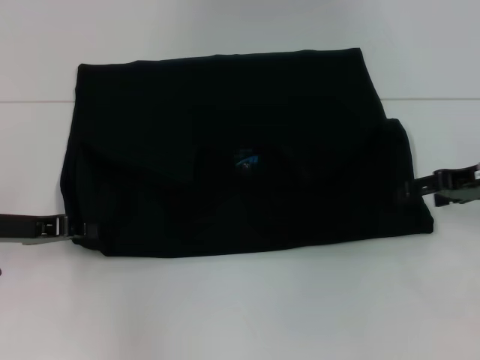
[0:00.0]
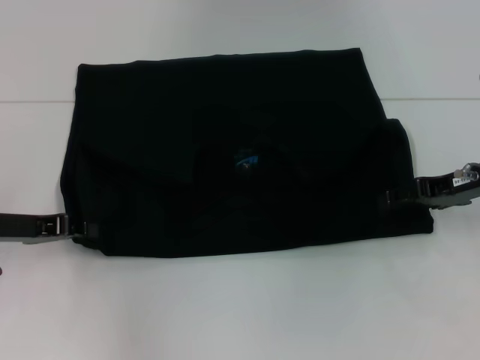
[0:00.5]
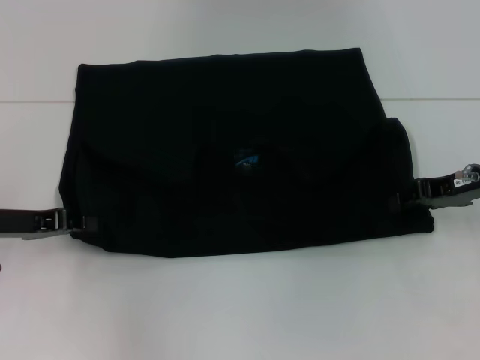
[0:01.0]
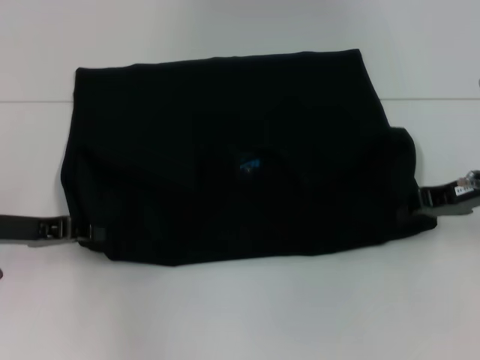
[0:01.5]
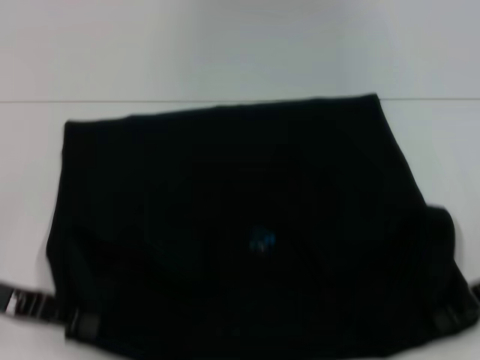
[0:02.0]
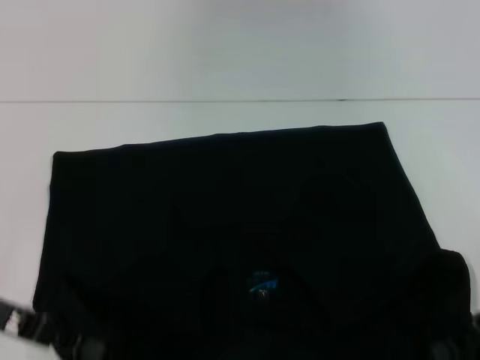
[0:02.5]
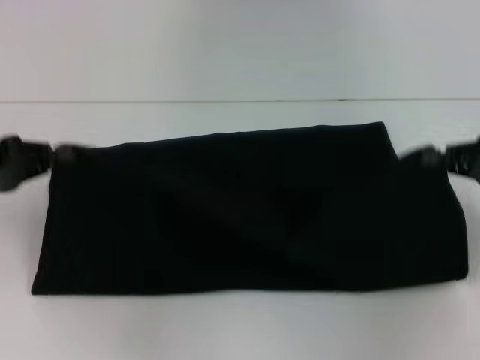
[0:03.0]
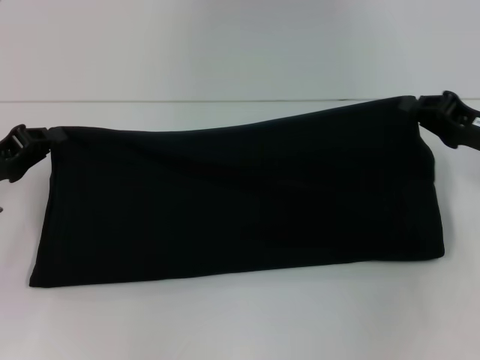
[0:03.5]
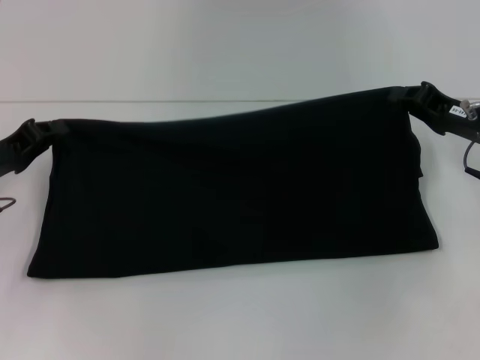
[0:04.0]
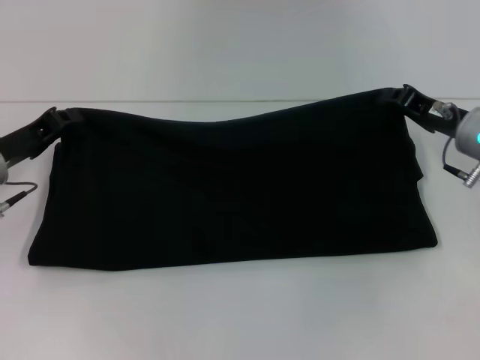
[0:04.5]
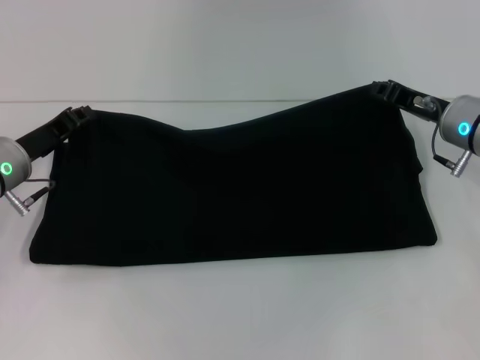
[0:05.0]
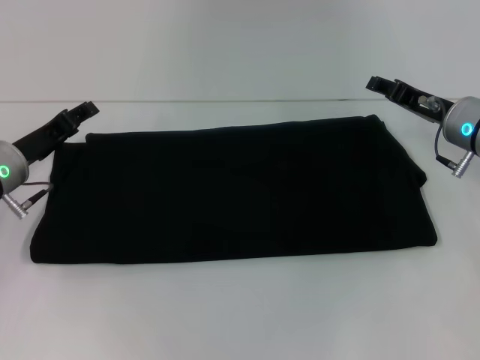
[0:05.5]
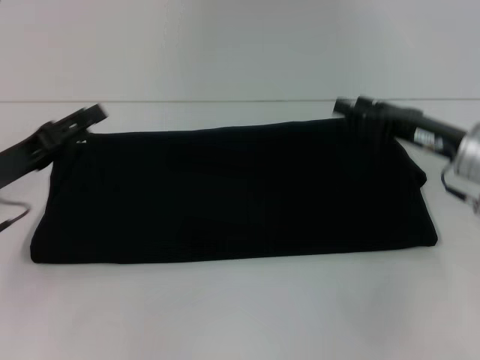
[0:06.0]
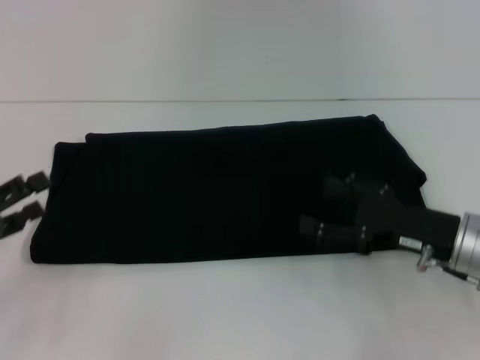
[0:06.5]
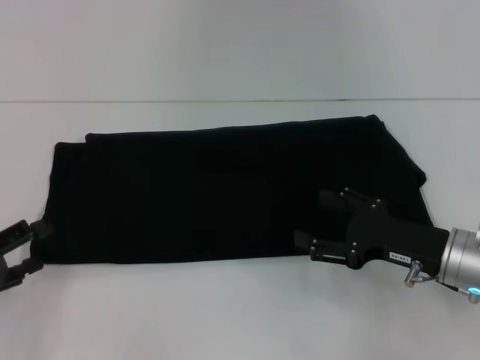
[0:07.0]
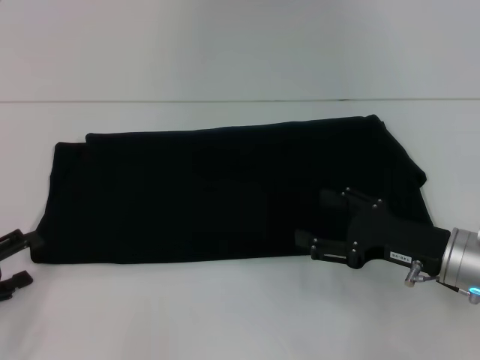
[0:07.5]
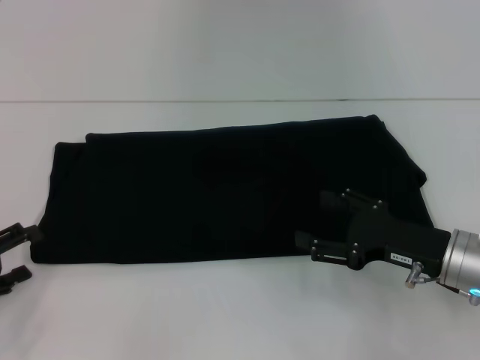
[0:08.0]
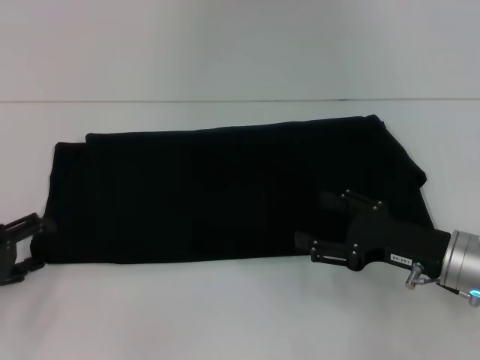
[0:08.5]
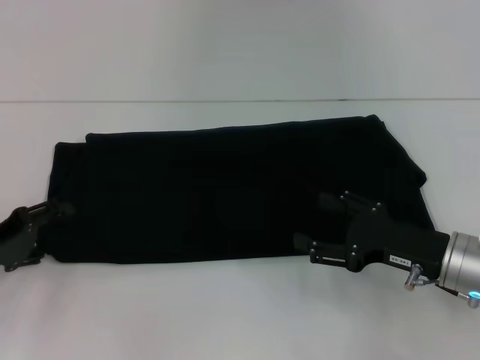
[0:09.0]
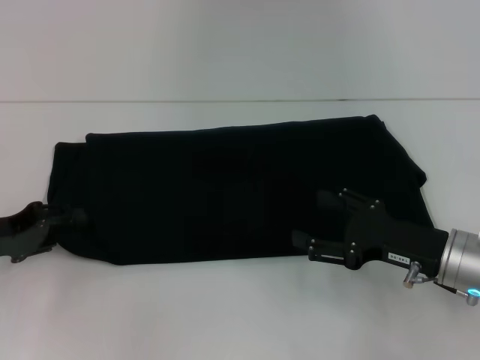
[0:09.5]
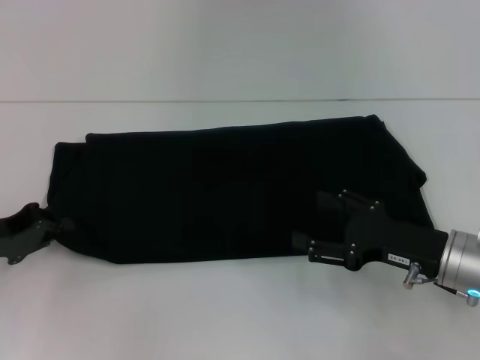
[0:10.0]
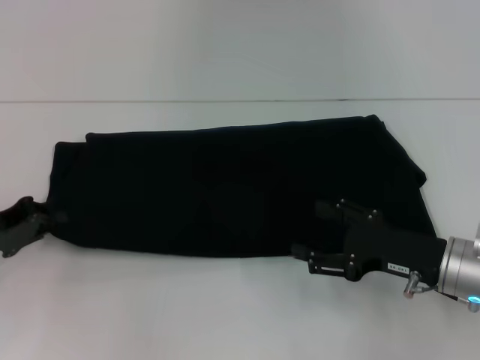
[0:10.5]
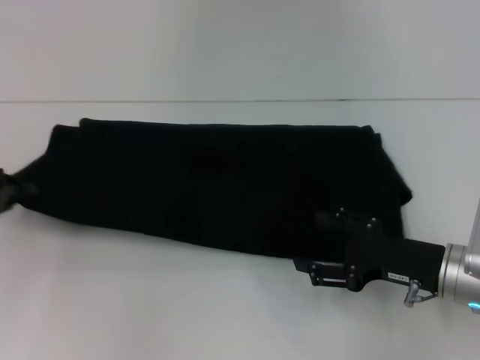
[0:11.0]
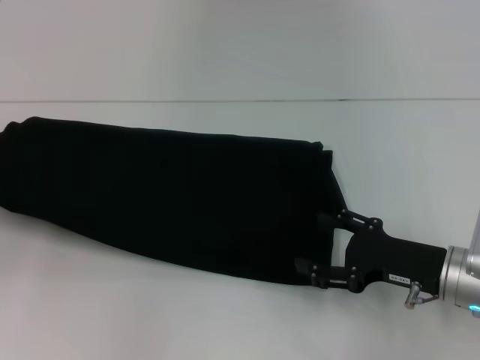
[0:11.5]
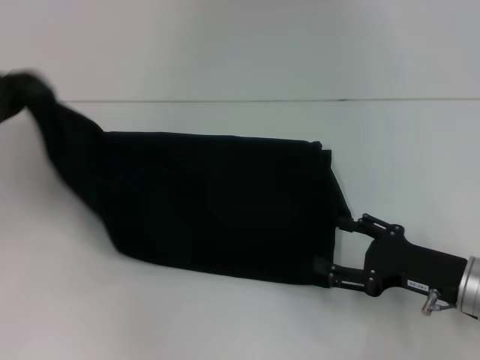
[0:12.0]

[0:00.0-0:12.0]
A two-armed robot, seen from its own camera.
Step, 0:00.0 to 0:02.0: Pull the clothes with your left hand.
Step, 0:00.0 to 0:02.0: Pull the clothes with your right hand.
Step, 0:02.5 to 0:05.0: Fold the clothes with your right hand.
0:00.0 to 0:02.0: The right gripper moves backward, roughly 5 cm, and closes up; the left gripper shifts by some 5 cm.
0:02.0 to 0:04.0: Both grippers move forward, about 5 cm.
0:04.0 to 0:06.0: The right gripper opens. Meanwhile the left gripper opens.
0:06.0 to 0:08.0: The right gripper moves backward and downward, roughly 10 cm. Meanwhile the left gripper is displaced backward and to the left by approximately 10 cm.
0:08.0 to 0:10.0: The left gripper goes some 5 cm forward, and closes up.
0:10.0 to 0:12.0: The left gripper is displaced upward and forward by roughly 10 cm.

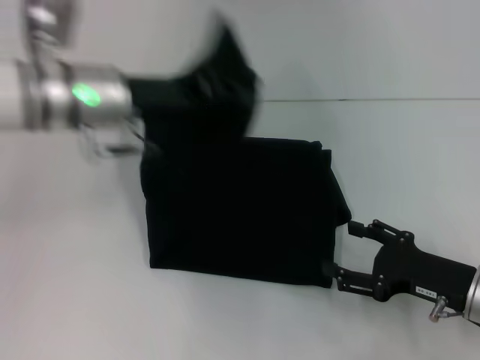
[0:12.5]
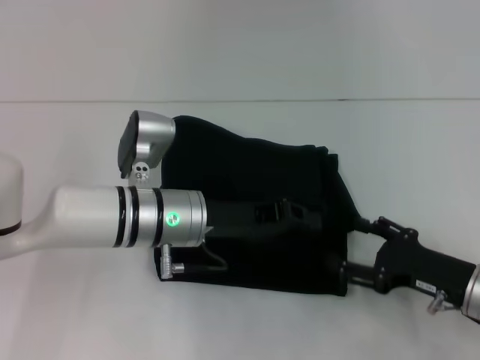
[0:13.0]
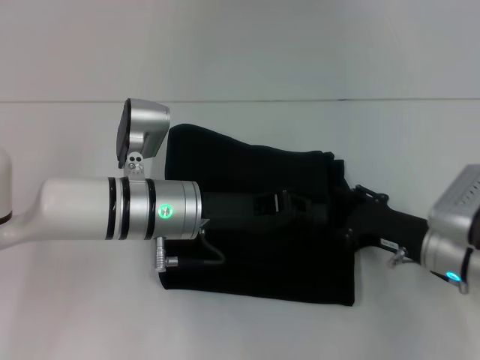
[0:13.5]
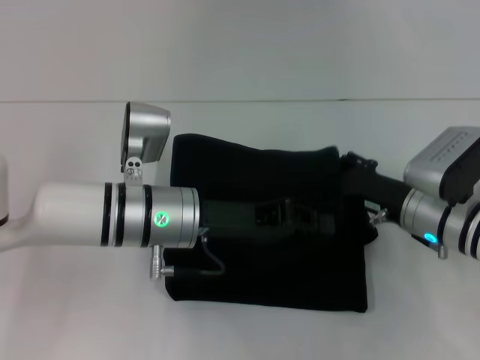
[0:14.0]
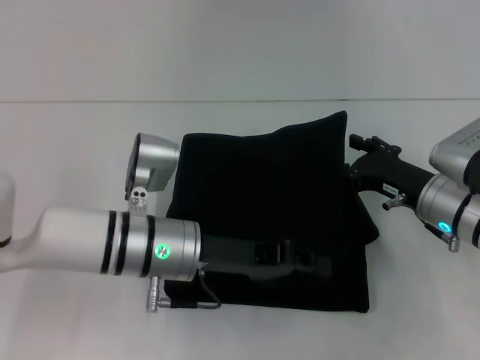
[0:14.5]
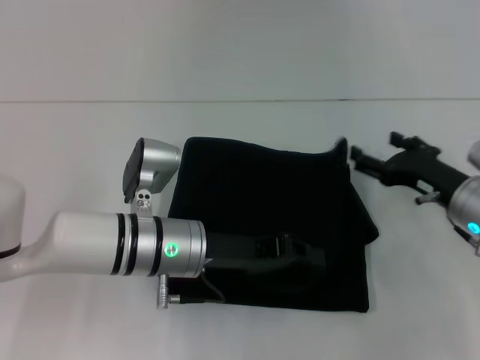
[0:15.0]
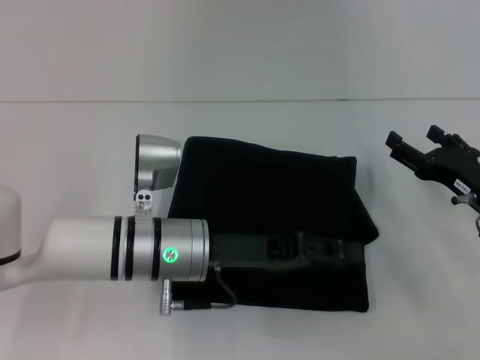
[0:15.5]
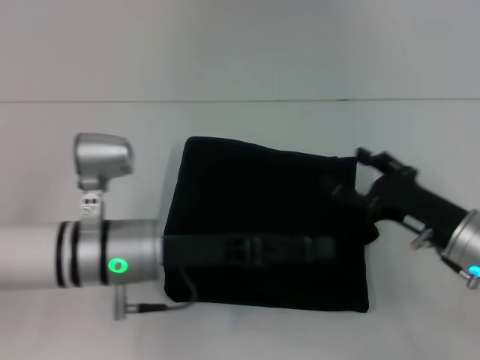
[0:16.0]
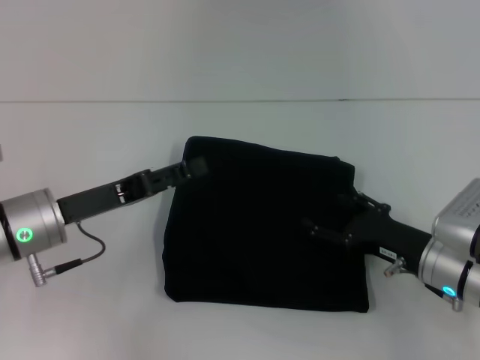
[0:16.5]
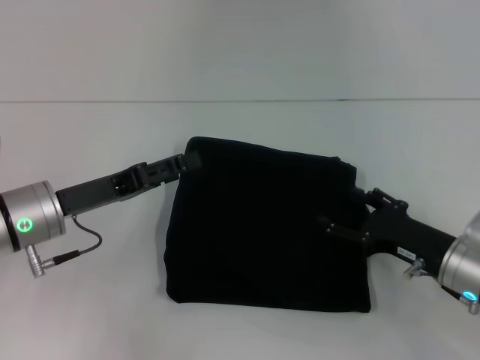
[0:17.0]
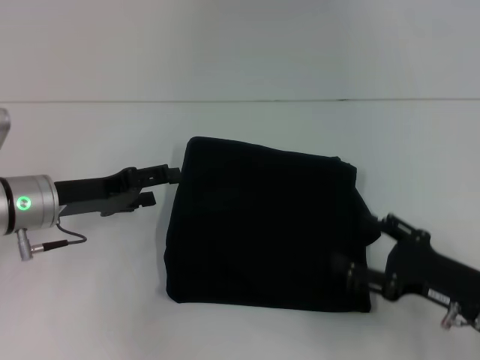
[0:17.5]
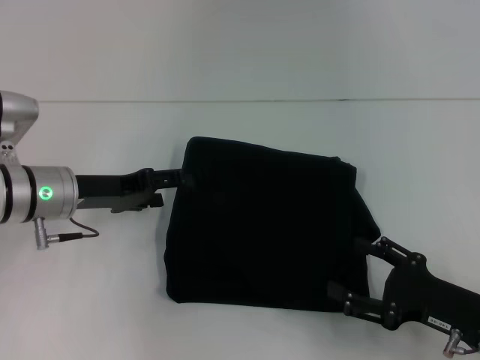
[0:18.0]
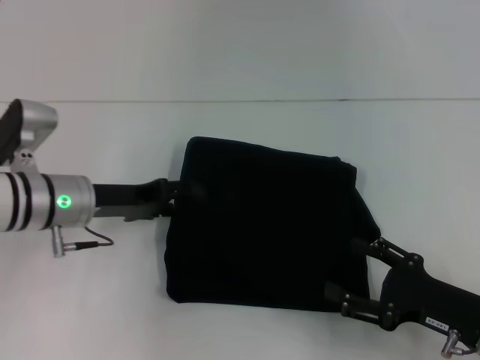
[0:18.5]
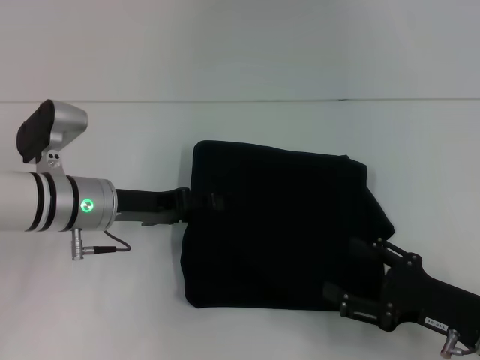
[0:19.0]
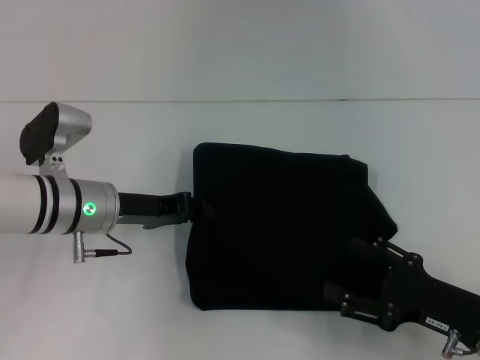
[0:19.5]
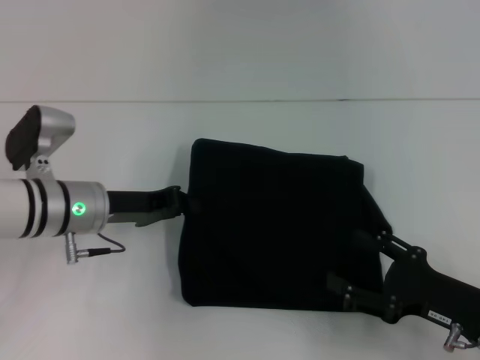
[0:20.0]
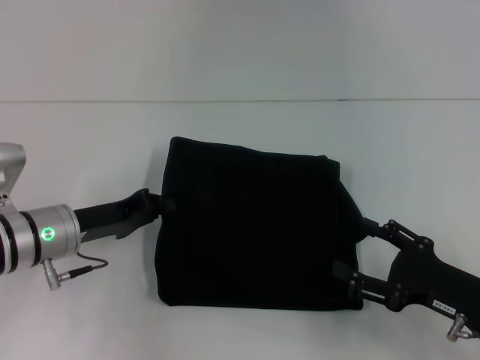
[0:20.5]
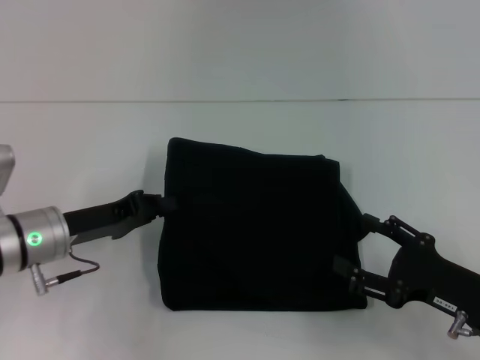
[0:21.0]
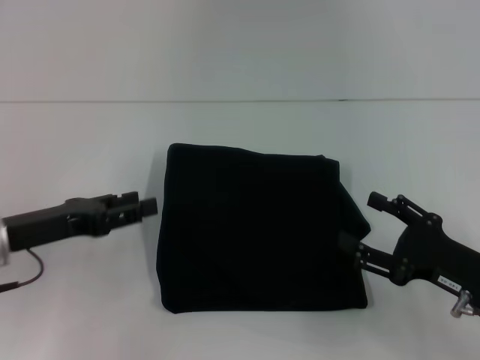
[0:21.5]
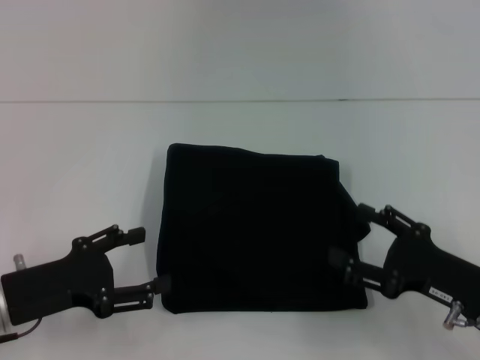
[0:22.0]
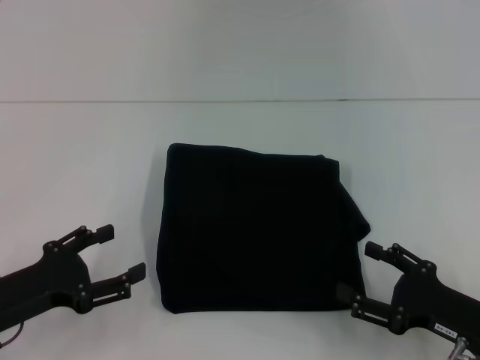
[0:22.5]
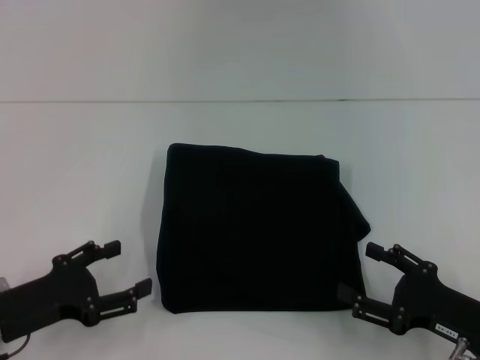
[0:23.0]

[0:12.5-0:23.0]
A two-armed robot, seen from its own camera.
Step, 0:12.5 to 0:15.5: Fold the clothes with your left hand.
0:12.5 to 0:14.5: The right gripper is displaced forward by about 10 cm. The left gripper shifts about 15 cm downward, backward and to the right.
0:14.5 to 0:16.5: The left gripper shifts approximately 10 cm to the left, and opens up; the right gripper moves backward, about 5 cm.
0:16.5 to 0:19.0: The left gripper goes approximately 5 cm forward; the right gripper travels backward by about 5 cm.
0:19.0 to 0:21.0: The left gripper moves approximately 5 cm, and closes.
0:21.0 to 0:23.0: The left gripper is displaced backward by approximately 10 cm, and opens up.

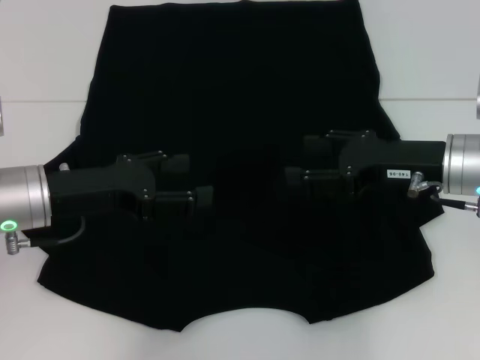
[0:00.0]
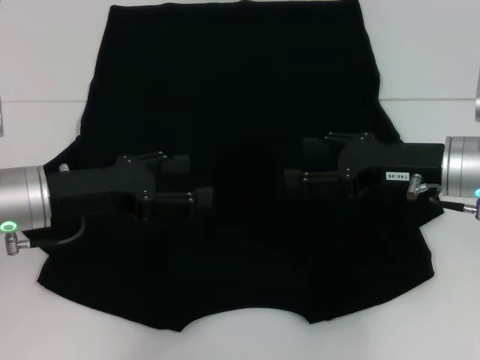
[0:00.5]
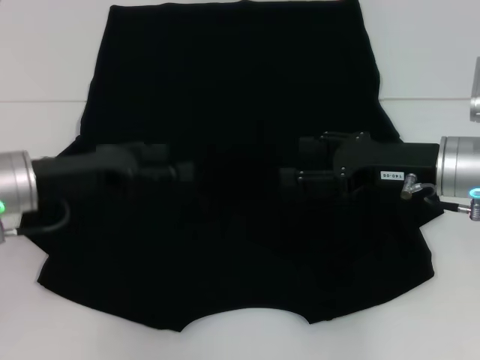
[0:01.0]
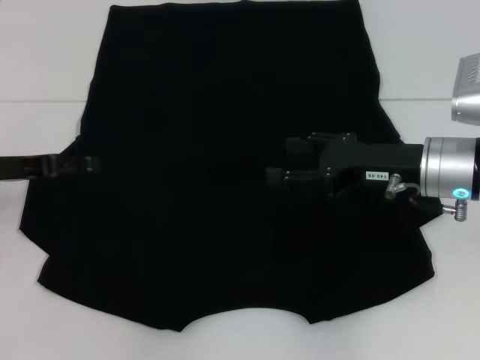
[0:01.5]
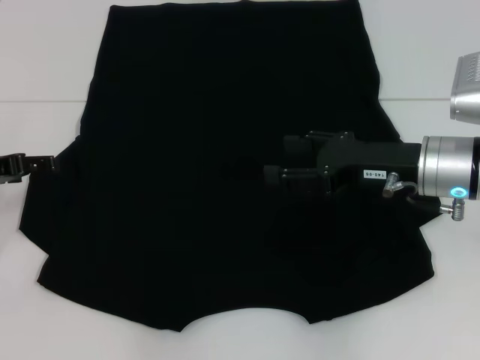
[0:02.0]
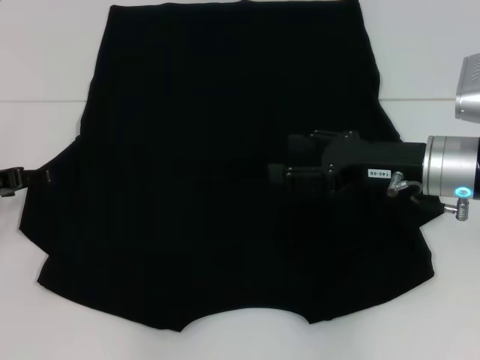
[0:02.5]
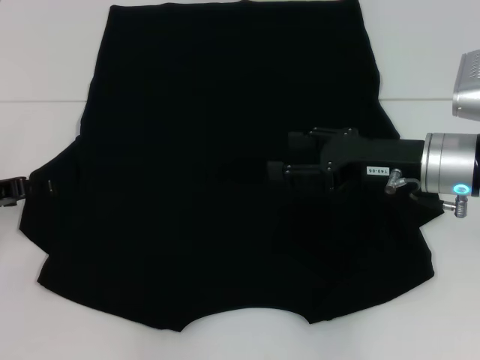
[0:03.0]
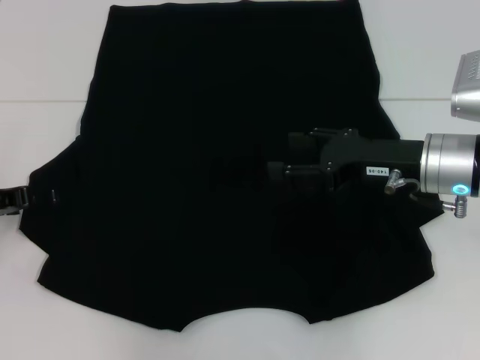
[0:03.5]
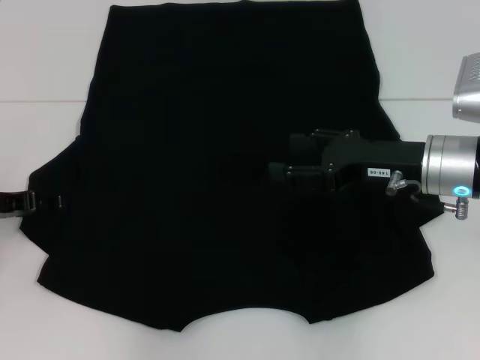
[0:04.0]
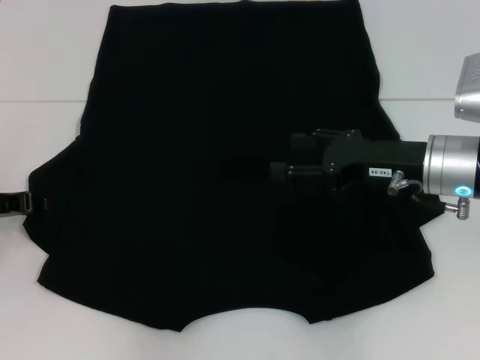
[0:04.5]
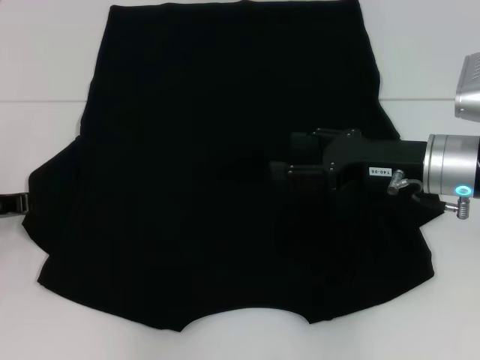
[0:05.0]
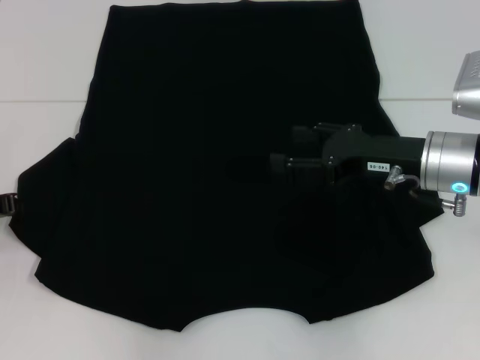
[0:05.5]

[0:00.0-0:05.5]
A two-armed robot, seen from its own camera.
0:00.0 to 0:02.0: The left gripper is displaced to the left by about 10 cm.
0:02.0 to 0:03.5: The grippers move only a little.
0:03.5 to 0:05.5: The left gripper closes up.
